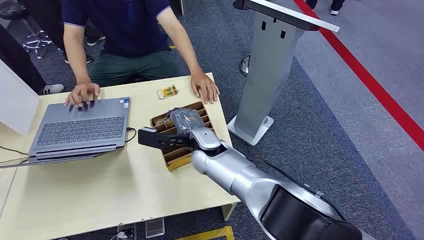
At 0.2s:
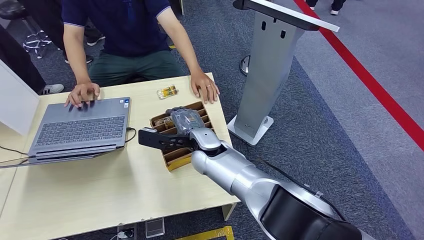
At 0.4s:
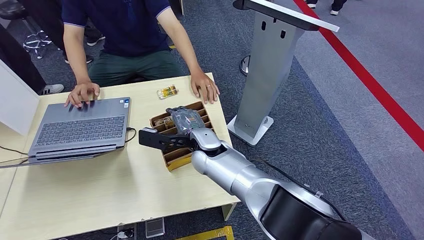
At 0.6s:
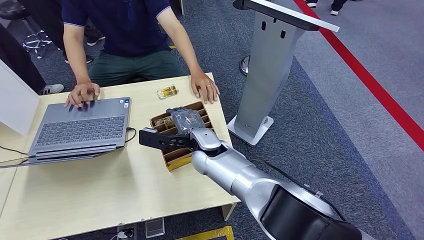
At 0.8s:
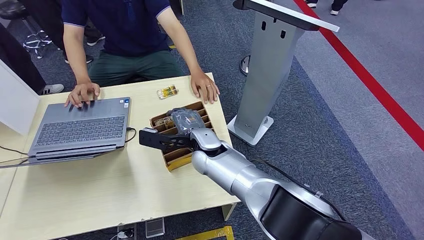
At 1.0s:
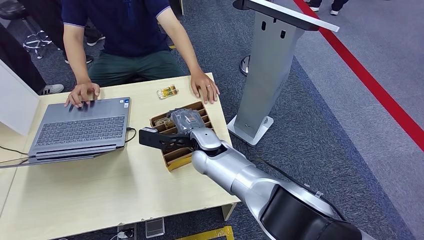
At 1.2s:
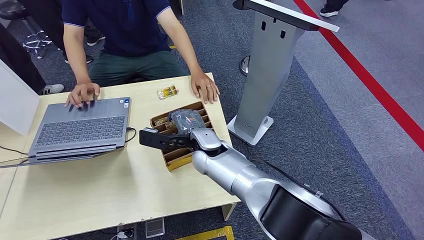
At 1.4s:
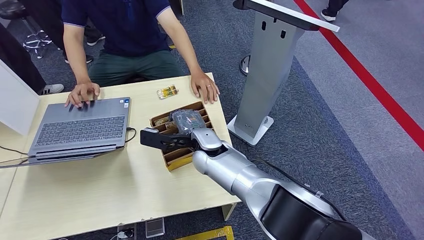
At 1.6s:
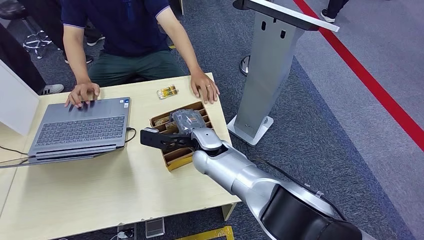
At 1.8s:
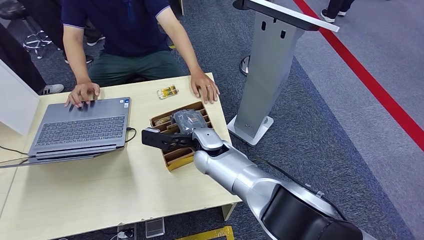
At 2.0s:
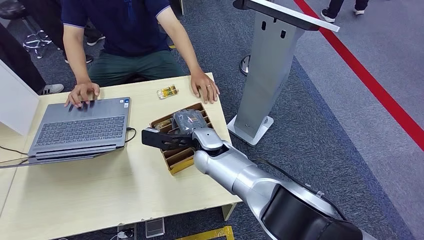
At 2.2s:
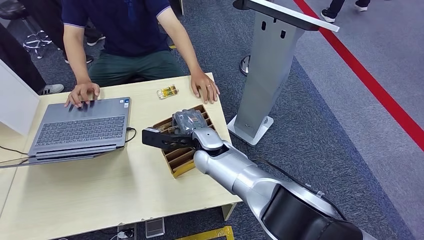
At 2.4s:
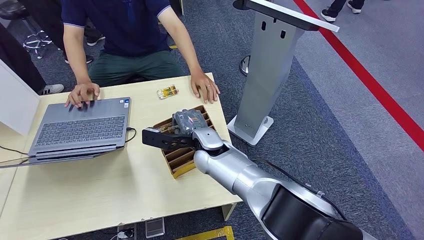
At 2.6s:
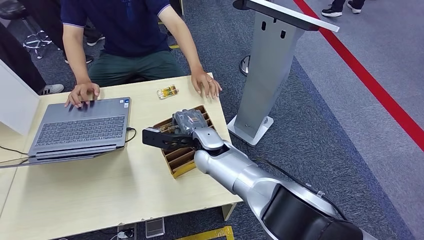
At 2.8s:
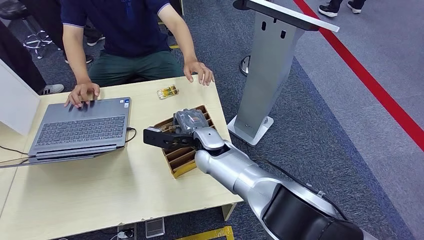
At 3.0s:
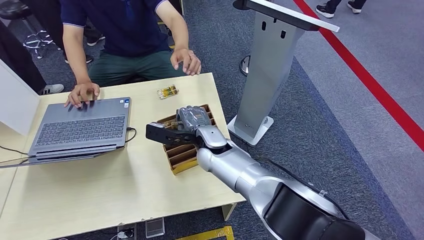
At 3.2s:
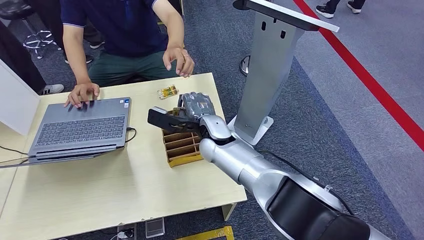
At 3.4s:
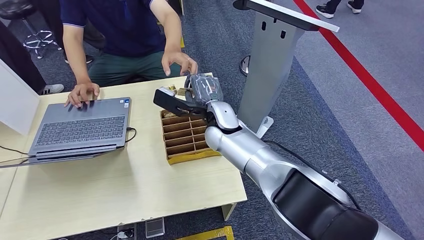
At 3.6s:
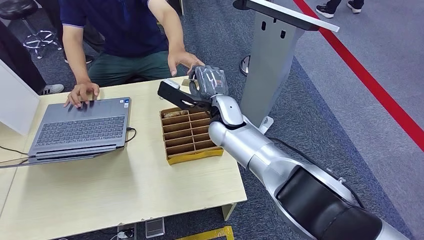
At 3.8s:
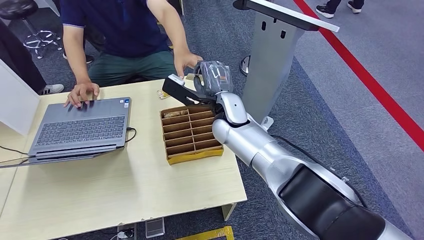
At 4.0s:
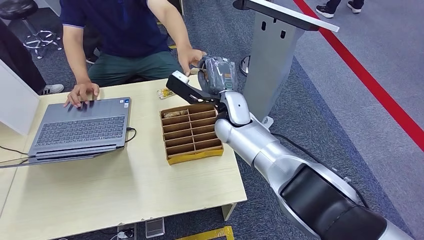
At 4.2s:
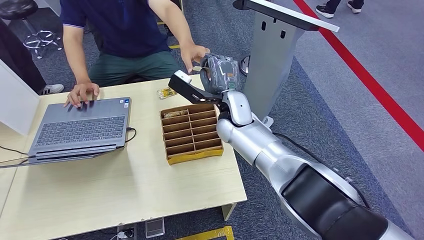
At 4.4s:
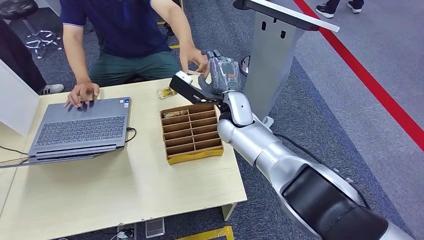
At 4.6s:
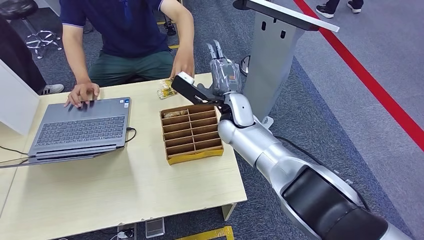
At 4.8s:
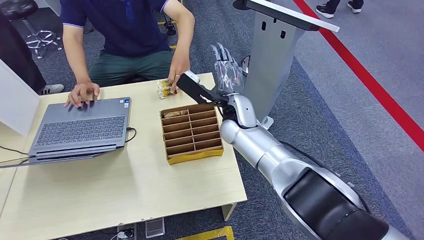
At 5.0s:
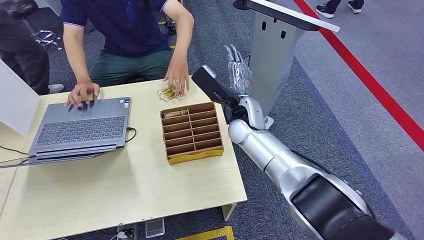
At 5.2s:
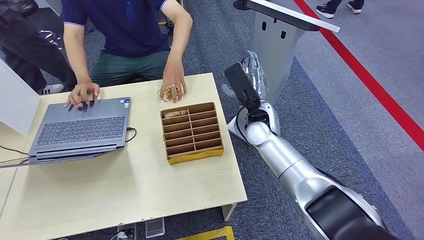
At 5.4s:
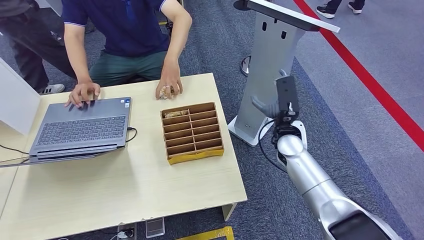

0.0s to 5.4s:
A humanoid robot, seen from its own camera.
Task of the whole recording: Pick up the card and hand it over to the target person.
Step, 0.0s to 3.2s: Pick up the key card from the card box.
Step, 3.4s to 5.4s: Hand the key card to the target.
1.4s to 2.8s: There are only small adjustments of the hands.
2.8s to 4.0s: The right hand heads upward and to the right, covering roughly 10 cm.
4.0s to 5.4s: The right hand goes roughly 25 cm to the right and backward.
